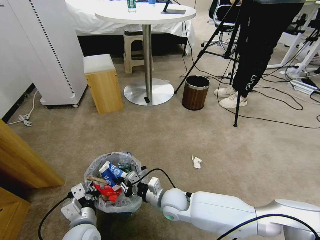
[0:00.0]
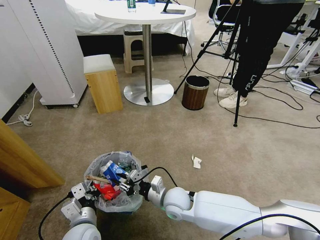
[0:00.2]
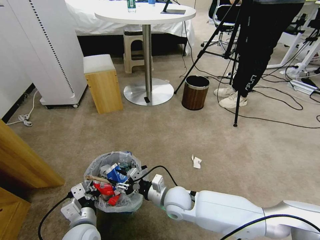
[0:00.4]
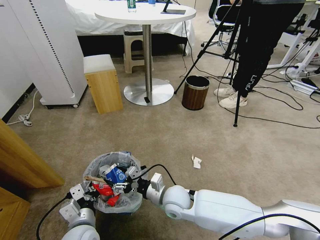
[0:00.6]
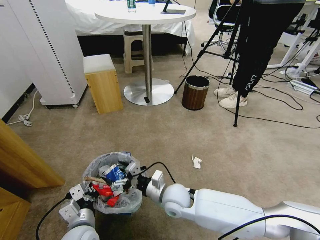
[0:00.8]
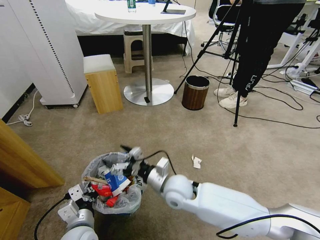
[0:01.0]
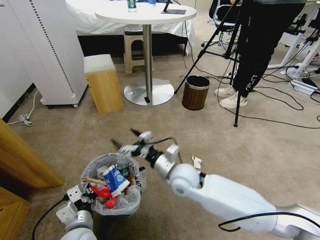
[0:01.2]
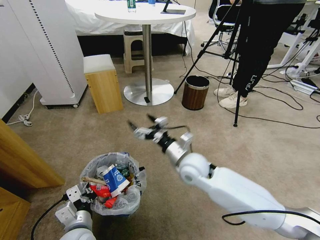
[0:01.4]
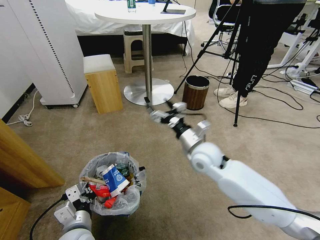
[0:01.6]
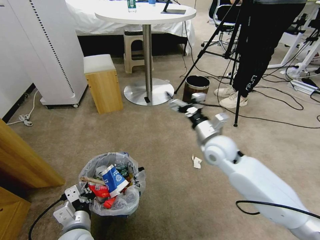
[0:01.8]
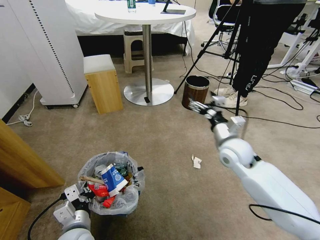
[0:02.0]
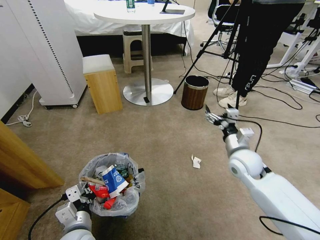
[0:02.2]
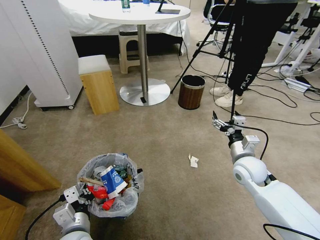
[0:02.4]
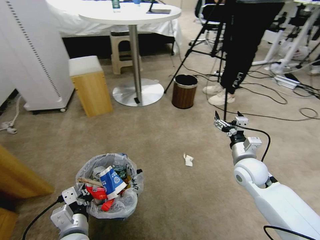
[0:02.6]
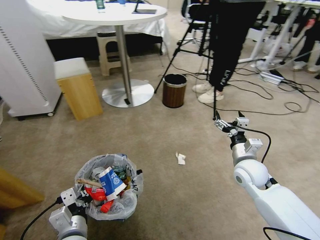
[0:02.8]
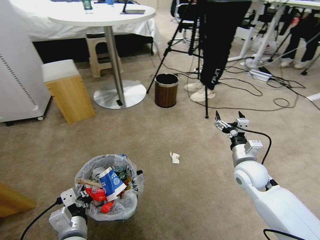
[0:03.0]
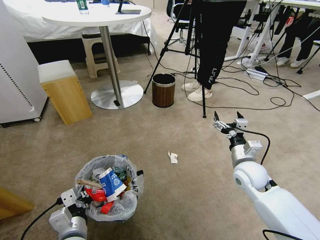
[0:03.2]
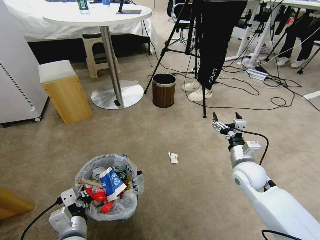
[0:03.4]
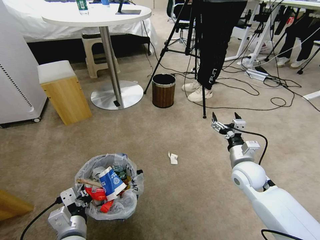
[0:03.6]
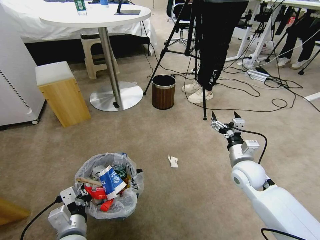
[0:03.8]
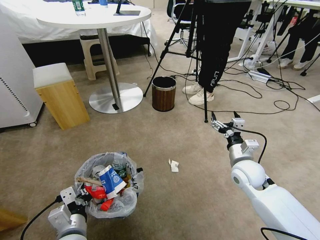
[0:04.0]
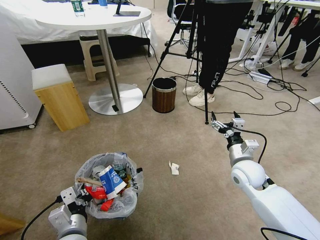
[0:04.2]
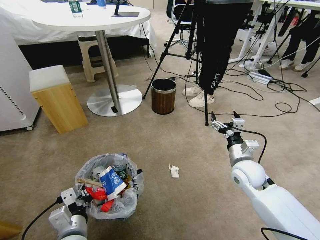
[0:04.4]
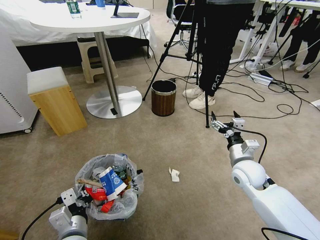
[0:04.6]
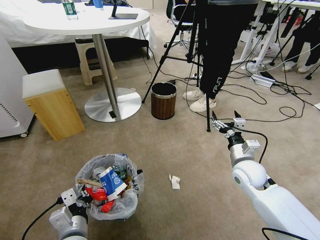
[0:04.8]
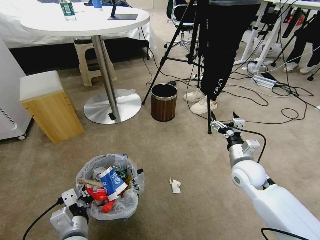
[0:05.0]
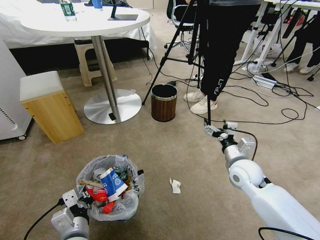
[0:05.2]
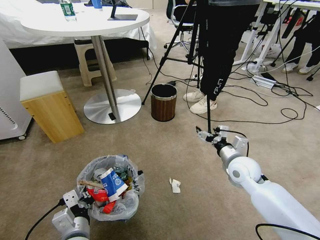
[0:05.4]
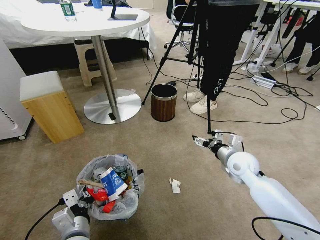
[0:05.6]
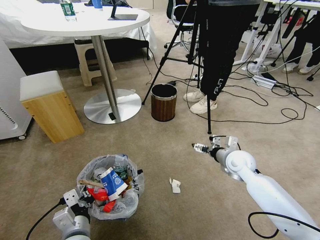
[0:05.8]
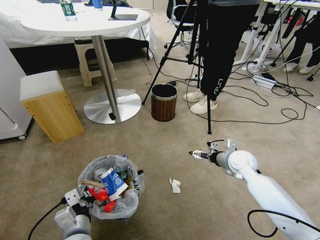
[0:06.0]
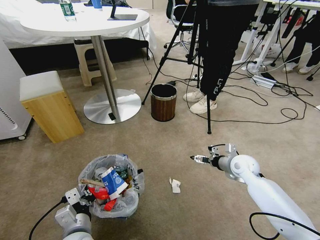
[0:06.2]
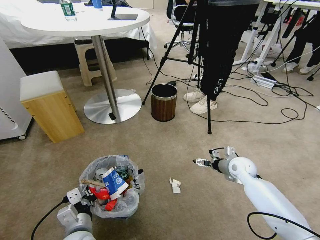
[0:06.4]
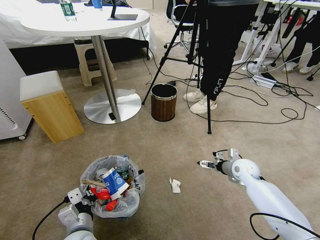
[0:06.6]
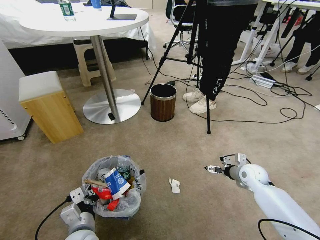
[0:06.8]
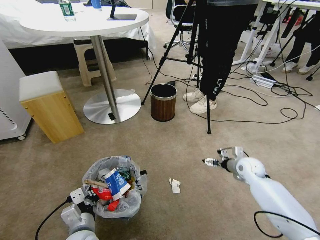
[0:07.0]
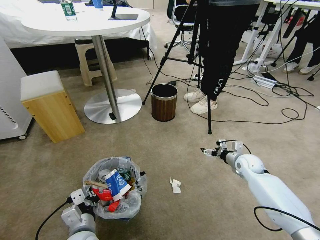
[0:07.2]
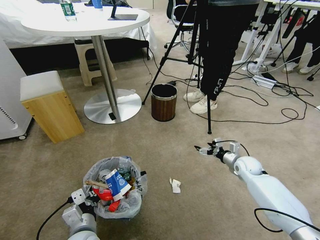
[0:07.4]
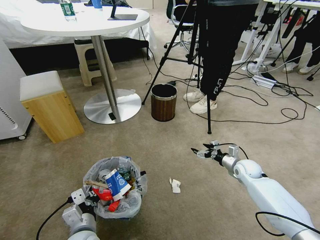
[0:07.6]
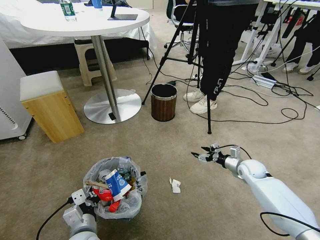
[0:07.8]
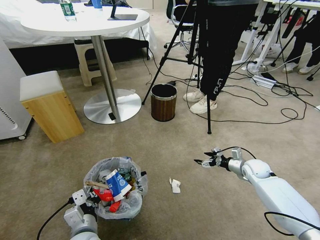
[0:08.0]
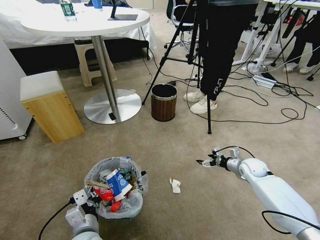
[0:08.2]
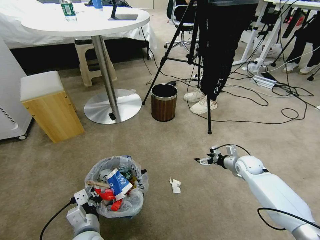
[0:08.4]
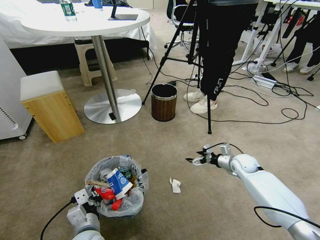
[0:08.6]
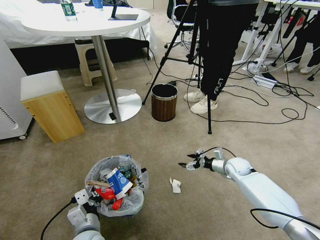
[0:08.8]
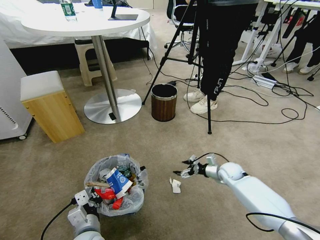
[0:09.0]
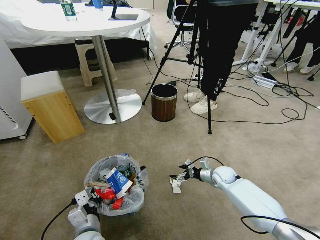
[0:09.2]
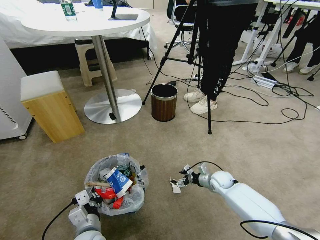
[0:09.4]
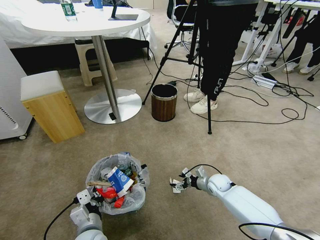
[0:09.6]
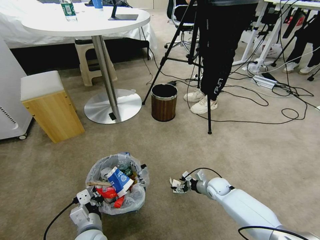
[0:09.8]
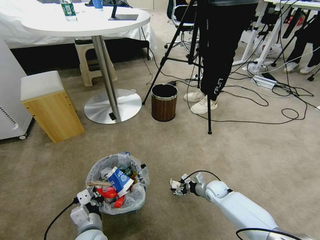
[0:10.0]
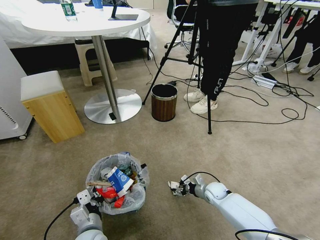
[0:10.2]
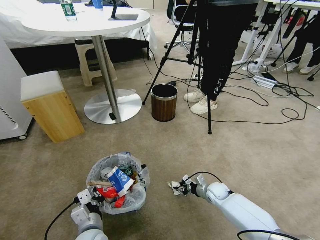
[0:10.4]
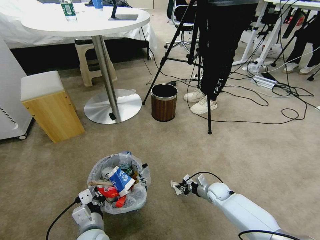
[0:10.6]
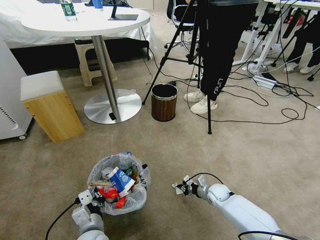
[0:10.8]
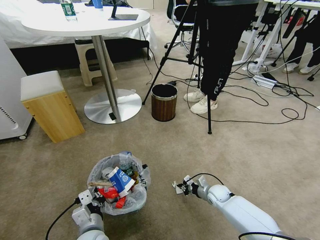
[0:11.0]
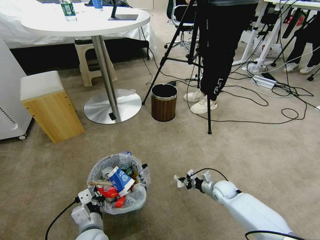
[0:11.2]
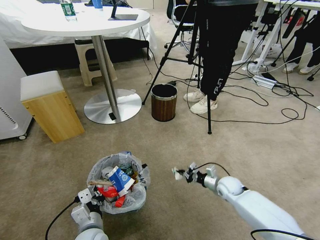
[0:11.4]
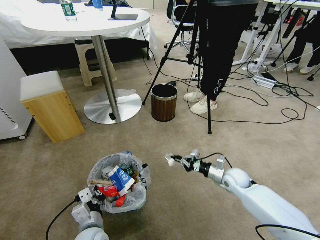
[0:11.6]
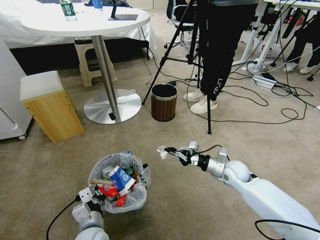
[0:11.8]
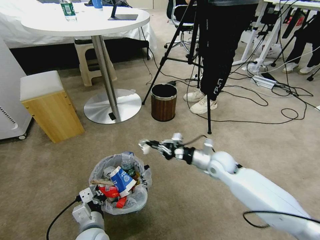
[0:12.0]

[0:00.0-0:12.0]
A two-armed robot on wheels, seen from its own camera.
Task of the whole recording: Pick up the trash bin and place the garbage on the floor into it.
0:00.0 to 0:01.6: The right gripper goes about 20 cm upward, to the right and forward, and opens up.
0:01.6 to 0:03.0: The right gripper travels to the right and downward by some 15 cm.
0:04.4 to 0:06.0: The right gripper moves forward, approximately 5 cm.
0:06.0 to 0:07.6: The right gripper heads downward and to the right, covering some 10 cm.
0:07.6 to 0:09.0: The right gripper heads to the left, covering approximately 5 cm.
0:09.0 to 0:10.4: The right gripper heads downward and backward, covering some 10 cm, and closes.
0:10.4 to 0:12.0: The right gripper goes roughly 20 cm upward.

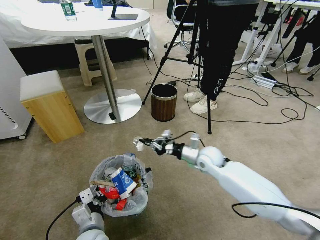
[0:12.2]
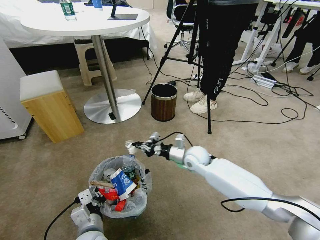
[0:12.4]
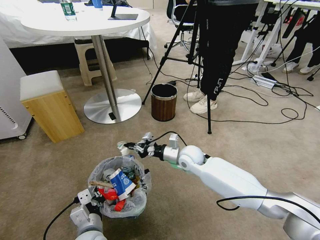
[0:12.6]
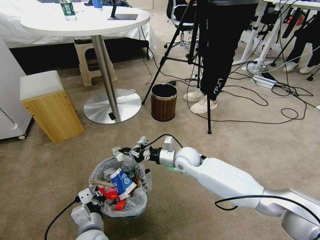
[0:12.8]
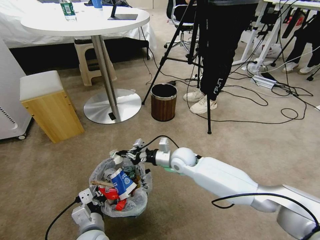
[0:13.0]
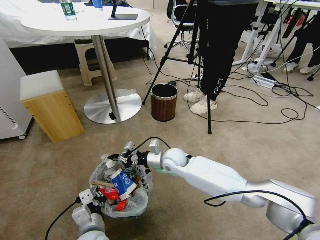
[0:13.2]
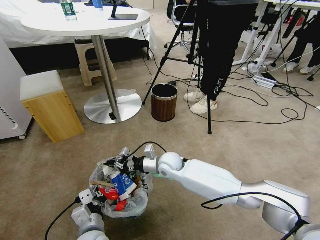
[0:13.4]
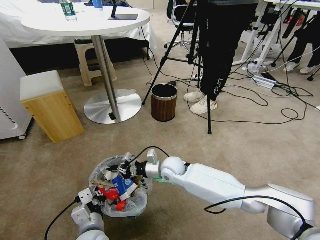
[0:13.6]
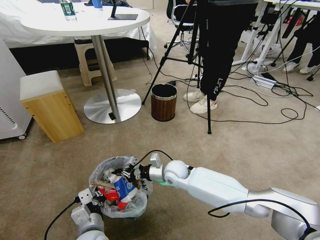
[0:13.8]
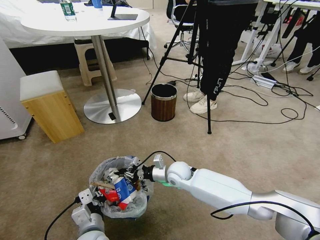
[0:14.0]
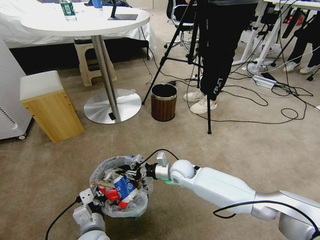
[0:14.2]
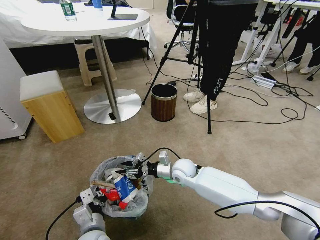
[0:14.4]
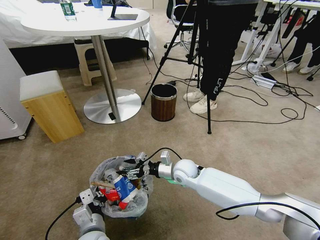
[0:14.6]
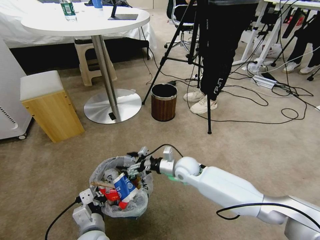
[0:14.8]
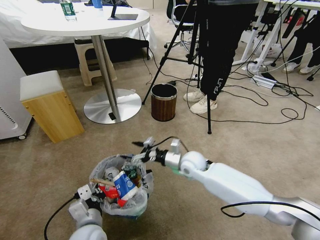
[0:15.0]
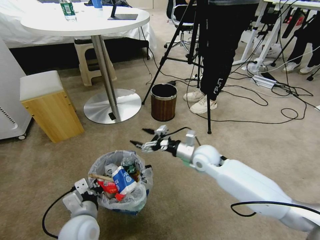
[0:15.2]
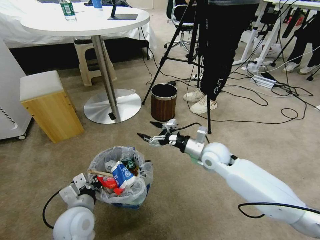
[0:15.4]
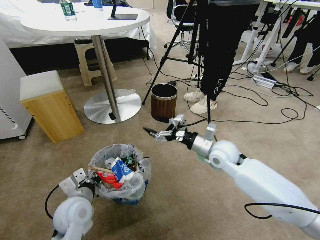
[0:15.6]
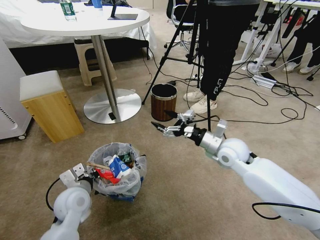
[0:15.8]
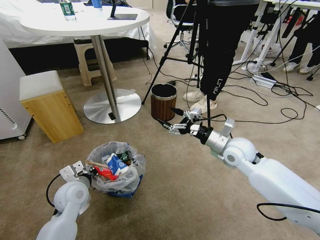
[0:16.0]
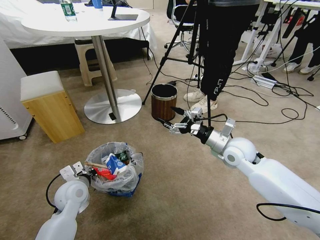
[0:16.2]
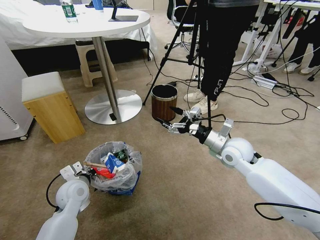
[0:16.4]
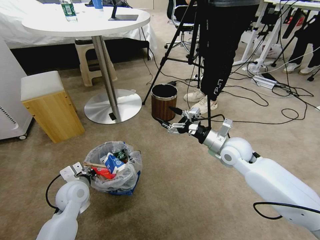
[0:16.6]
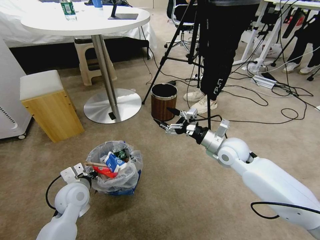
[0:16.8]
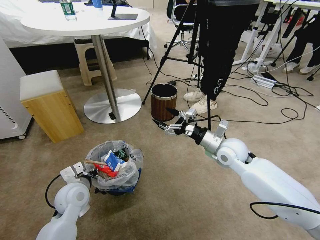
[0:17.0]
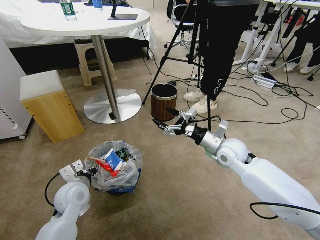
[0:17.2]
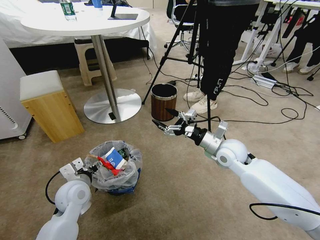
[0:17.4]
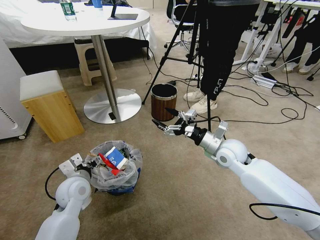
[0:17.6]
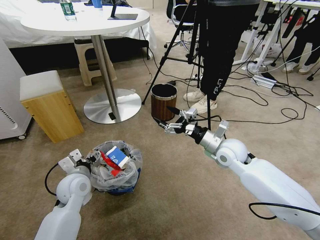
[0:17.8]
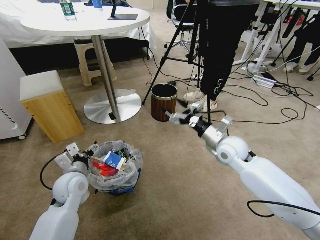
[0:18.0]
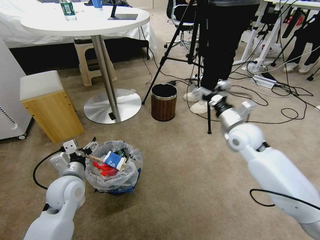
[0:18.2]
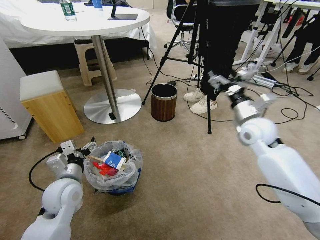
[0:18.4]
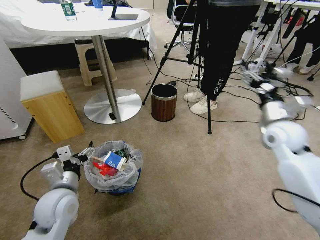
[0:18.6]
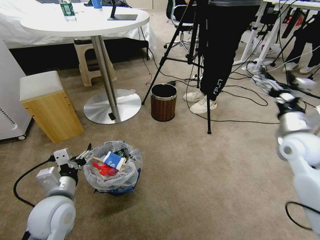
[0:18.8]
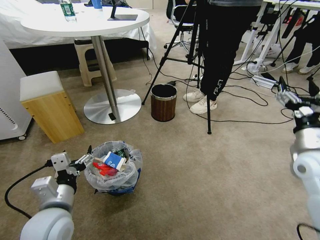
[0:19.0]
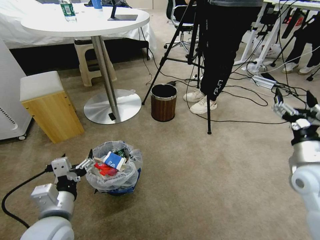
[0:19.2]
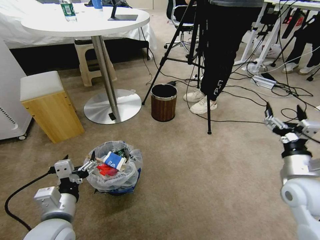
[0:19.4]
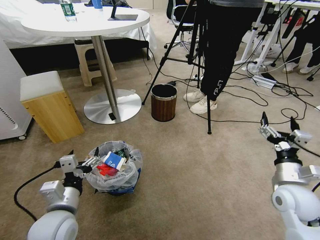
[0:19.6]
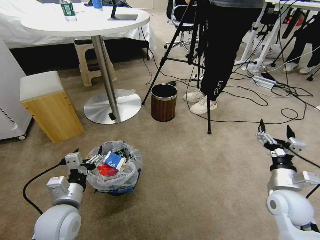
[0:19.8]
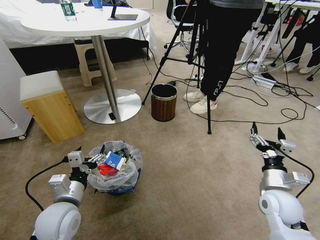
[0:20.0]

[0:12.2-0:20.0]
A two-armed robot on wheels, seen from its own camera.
Task of the whole recording: Pick up the trash bin and place the garbage on the floor into it.
0:12.2 to 0:13.8: The right gripper goes about 15 cm to the left and downward.
0:13.8 to 0:15.4: The left gripper goes some 5 cm forward. Meanwhile the right gripper moves to the right and upward, about 15 cm, and opens.
0:15.4 to 0:16.8: The right gripper changes place by some 5 cm. Meanwhile the left gripper goes roughly 10 cm forward.
0:16.8 to 0:18.4: The right gripper heads upward and to the right, covering roughly 10 cm. The left gripper heads upward, covering approximately 5 cm, and opens its fingers.
0:18.4 to 0:20.0: The right gripper goes about 25 cm backward and downward; the left gripper shifts roughly 5 cm backward.
